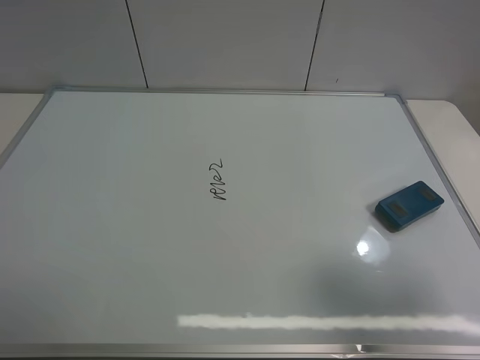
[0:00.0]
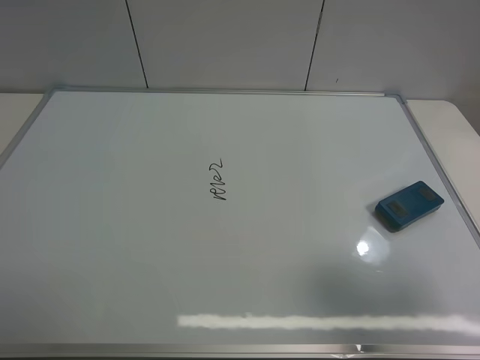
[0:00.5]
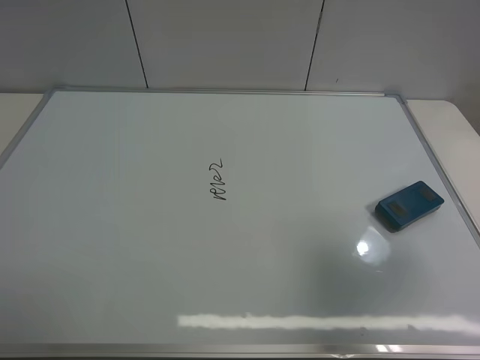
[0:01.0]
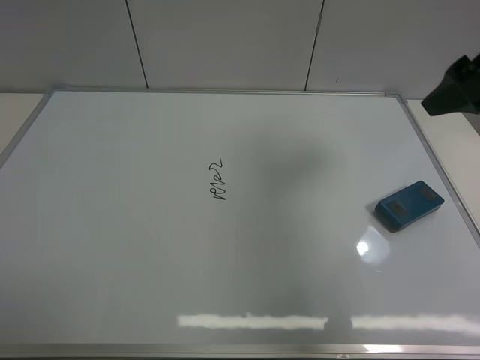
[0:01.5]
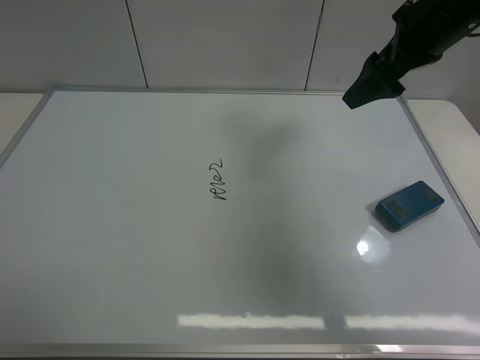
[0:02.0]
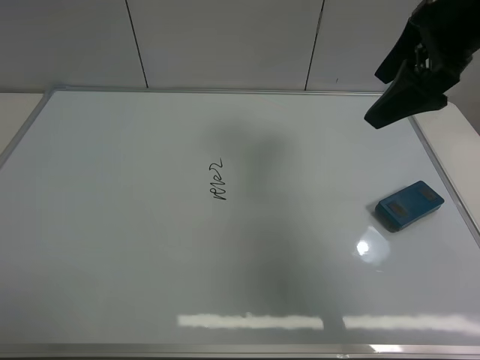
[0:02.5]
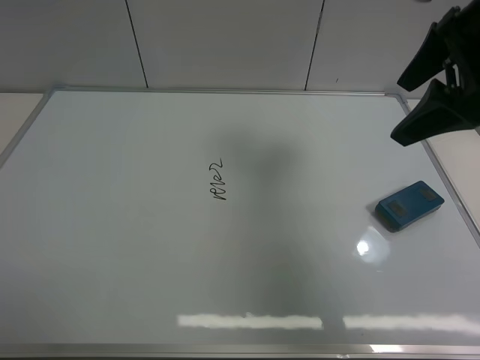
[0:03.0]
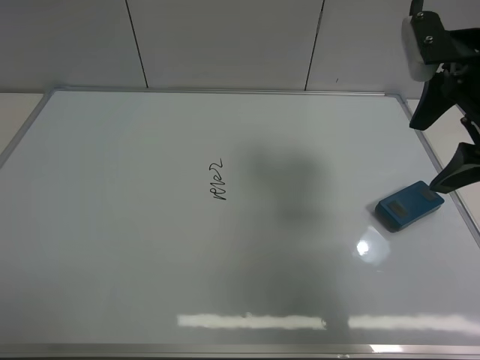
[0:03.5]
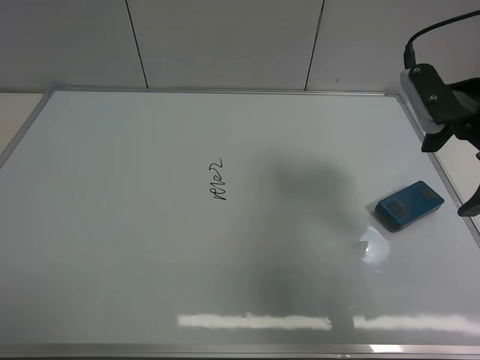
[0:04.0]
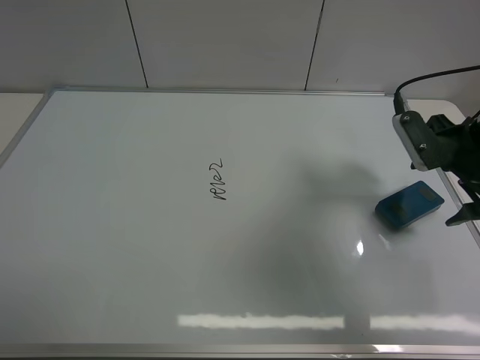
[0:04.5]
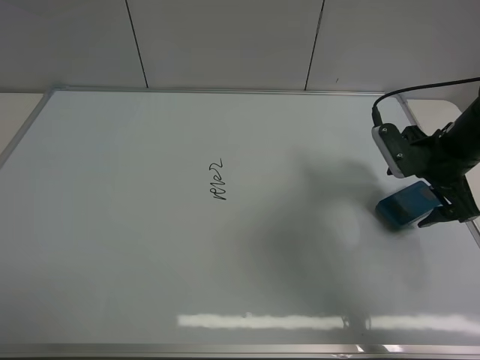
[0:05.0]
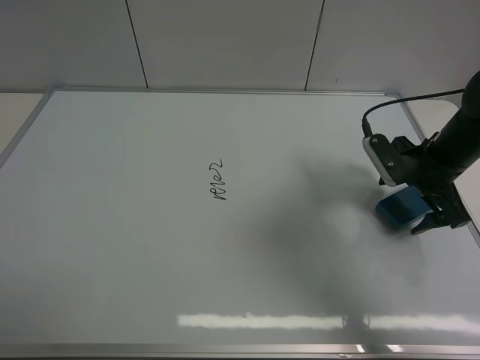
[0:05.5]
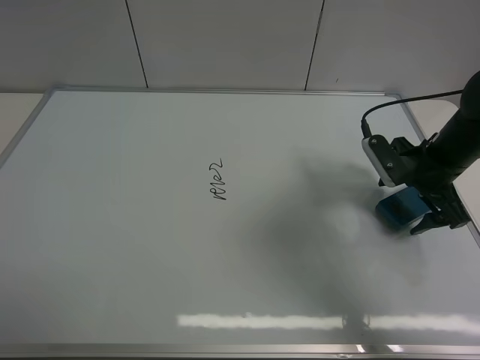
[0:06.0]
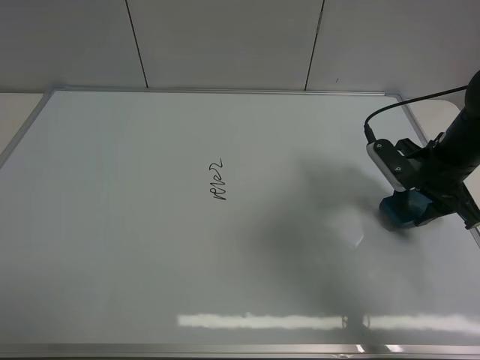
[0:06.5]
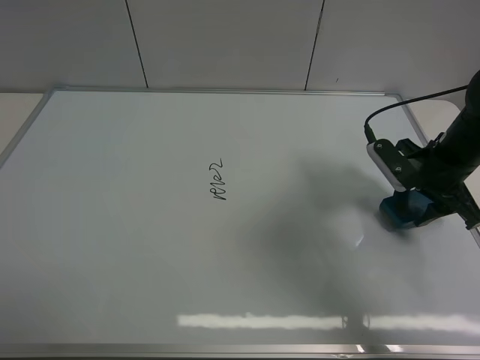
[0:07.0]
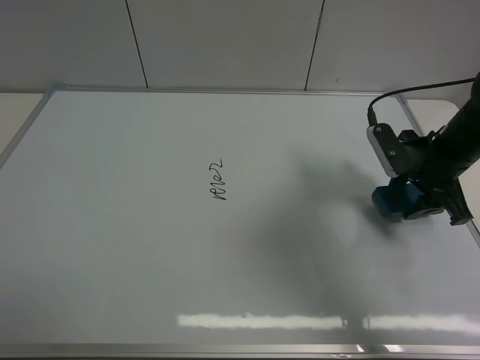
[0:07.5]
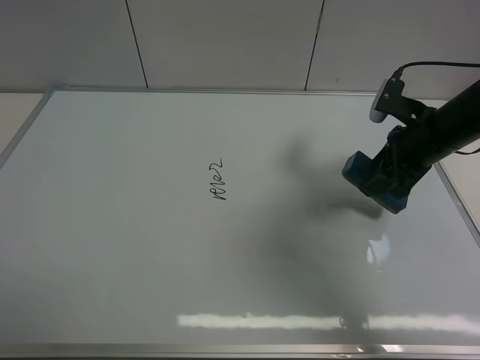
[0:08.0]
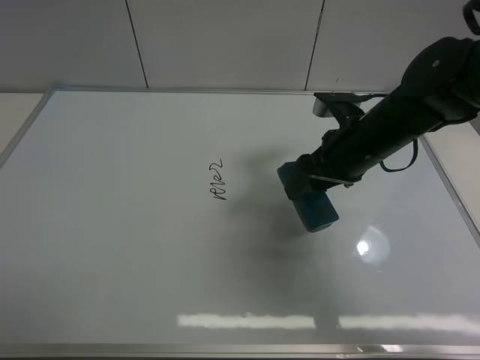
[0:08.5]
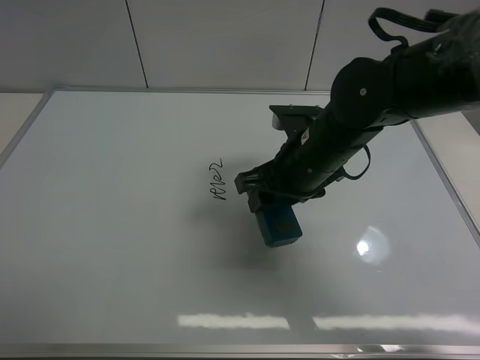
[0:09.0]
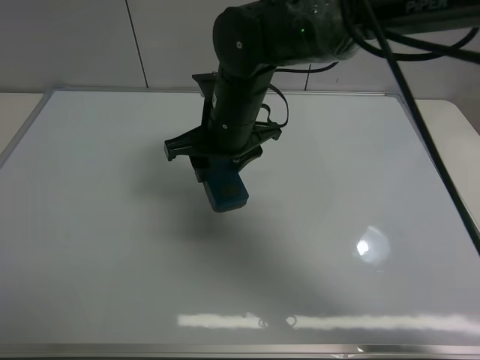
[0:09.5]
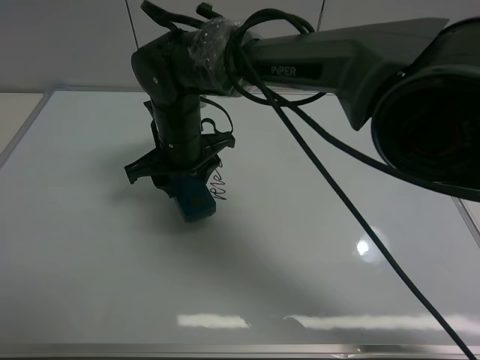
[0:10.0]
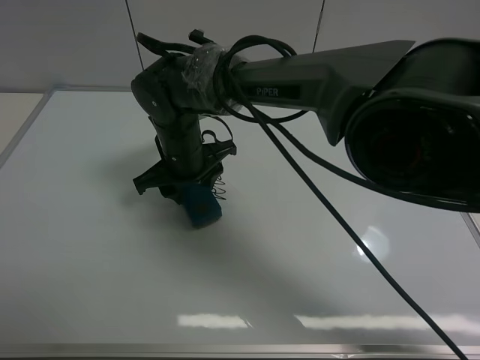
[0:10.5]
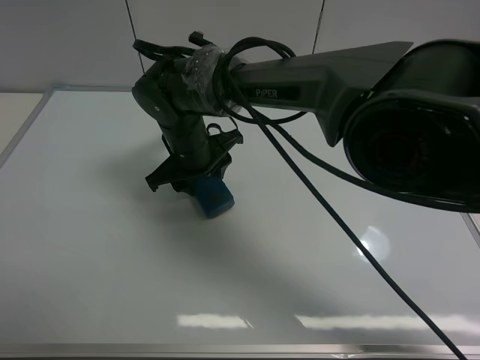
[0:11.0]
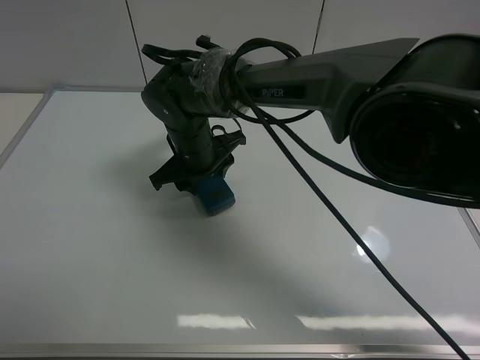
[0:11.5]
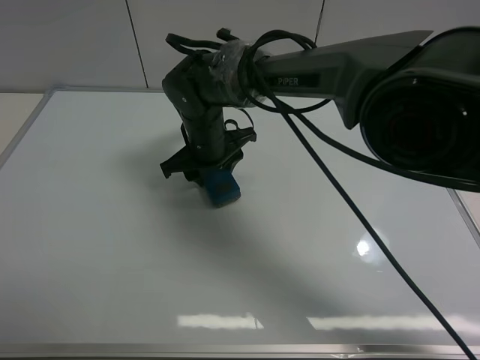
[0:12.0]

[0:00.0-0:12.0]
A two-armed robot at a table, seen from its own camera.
Task of the whole recording: use the right gripper to pick up the board eraser, wipe the notes on the whiteboard clean, and then put them back in place.
Step, 0:00.0 to 0:07.5: Pick up the board eraser with right gripper.
0:00.0 to 0:02.0: The right gripper moves forward, about 35 cm.
0:02.0 to 0:04.0: The right gripper goes approximately 10 cm backward and downward.
0:04.0 to 0:06.0: The right gripper moves downward, about 10 cm.
0:06.0 to 0:08.0: The right gripper closes up.
0:08.0 to 0:10.0: The right gripper goes approximately 35 cm to the left.
0:10.0 to 0:12.0: The right gripper ends up approximately 5 cm from where it was.

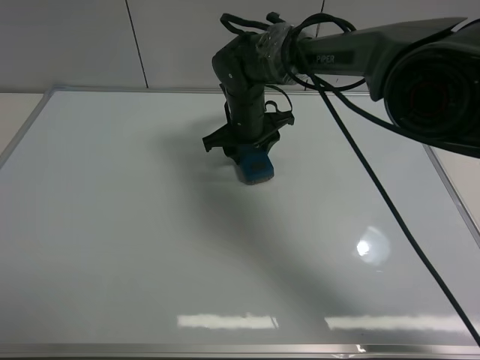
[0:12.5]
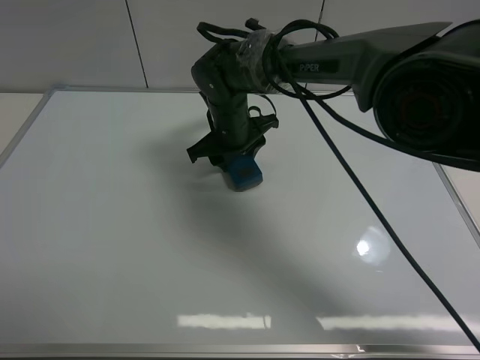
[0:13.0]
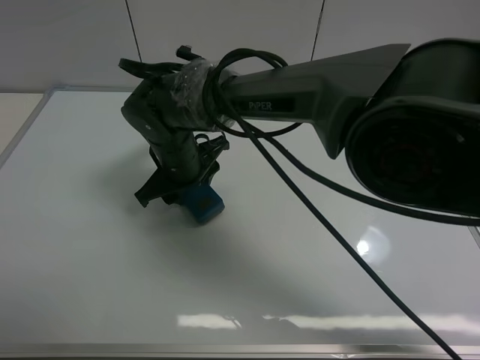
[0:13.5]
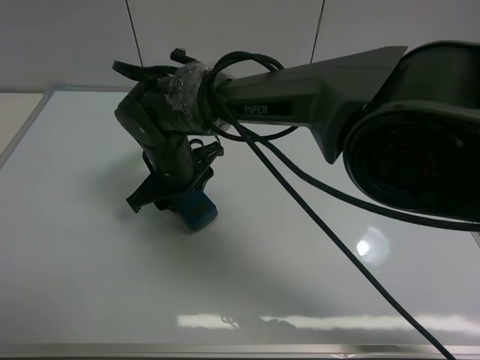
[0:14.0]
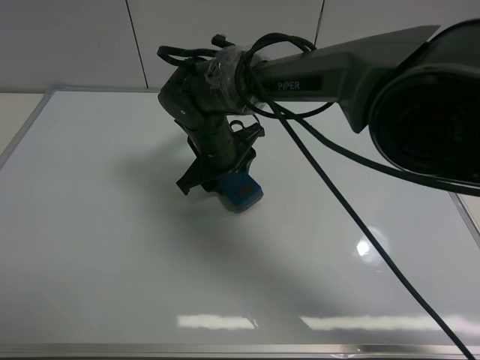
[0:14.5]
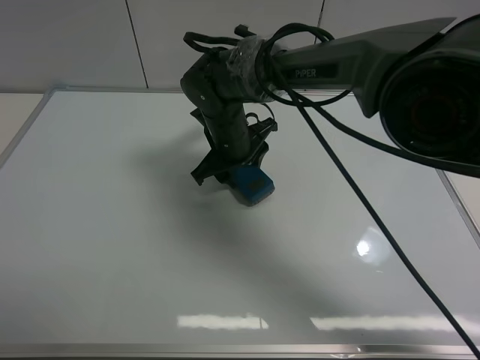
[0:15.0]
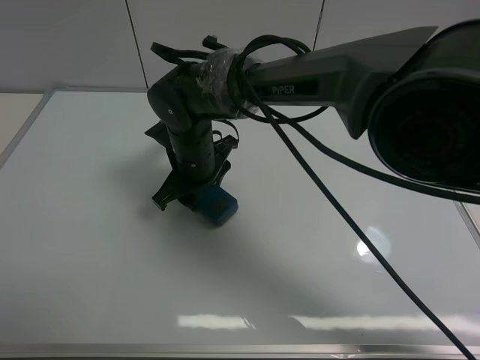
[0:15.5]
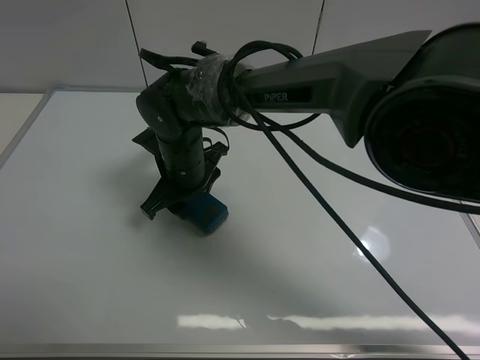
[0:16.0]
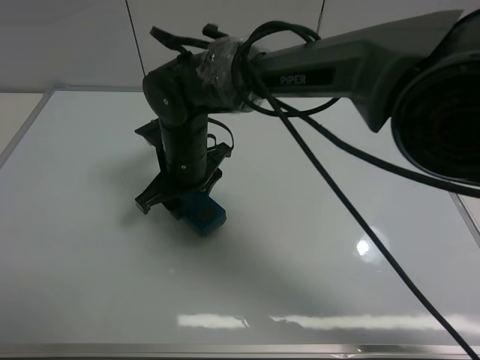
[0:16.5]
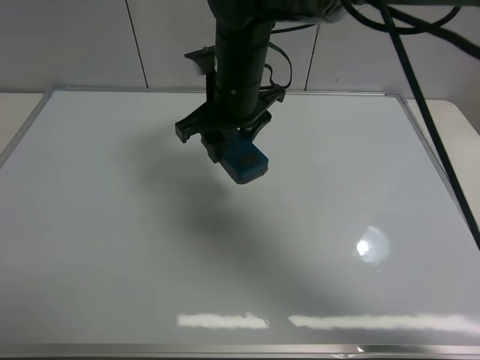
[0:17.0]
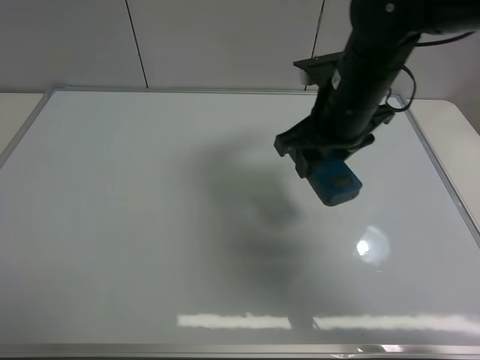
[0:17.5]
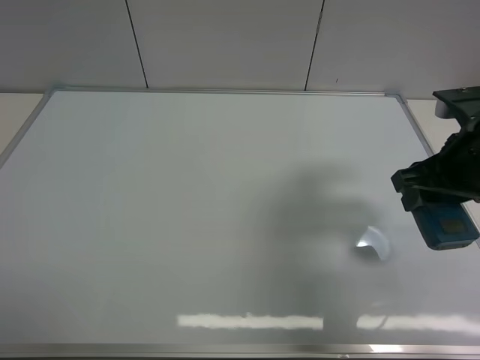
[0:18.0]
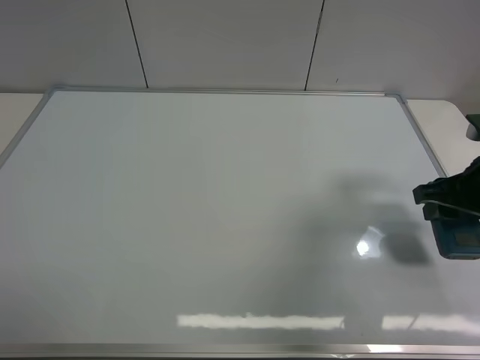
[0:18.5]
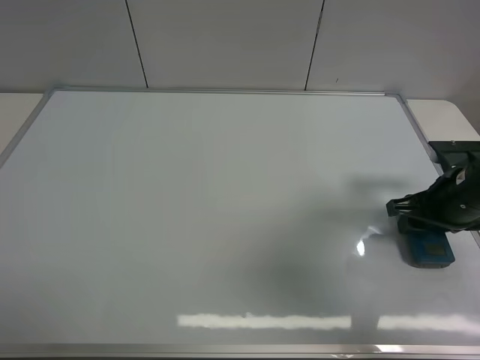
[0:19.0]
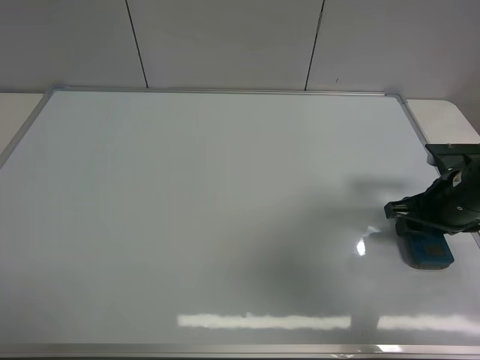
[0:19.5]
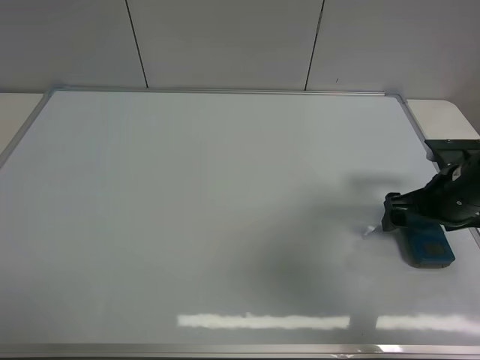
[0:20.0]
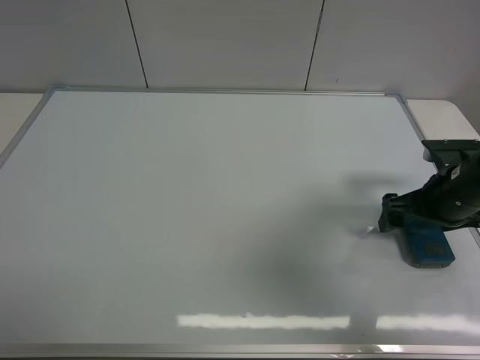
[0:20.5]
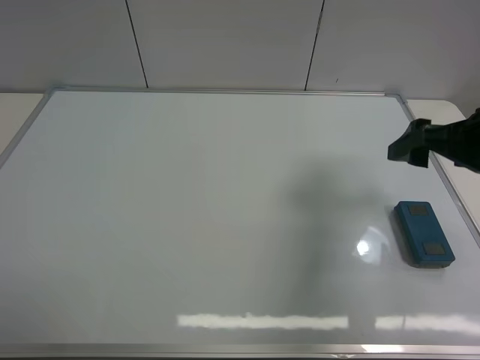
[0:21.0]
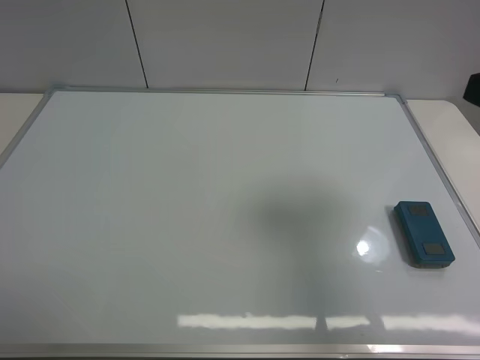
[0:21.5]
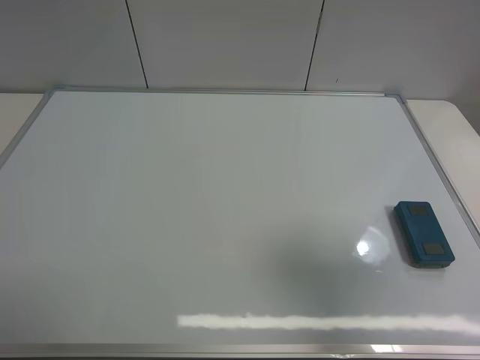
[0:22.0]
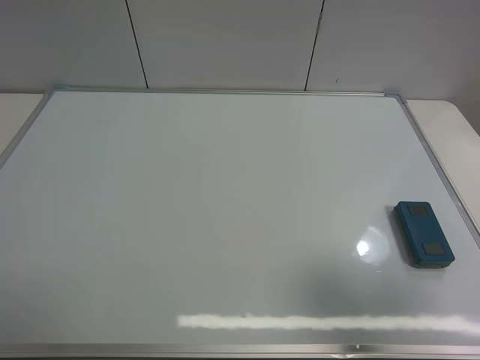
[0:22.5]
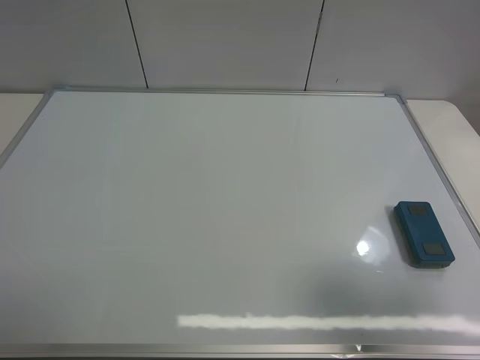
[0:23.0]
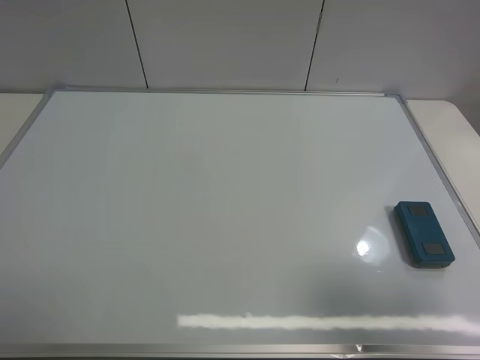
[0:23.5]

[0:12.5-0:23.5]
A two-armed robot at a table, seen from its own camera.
Task of the whole recording: use the right gripper to pick up the board eraser, wipe the notes on the whiteboard clean, and then put them back in place.
Step, 0:12.5 to 0:16.0: Wipe off the writing on the board with right gripper.
Step, 0:16.5 to 0:20.0: Move the board eraser to the right of the whiteboard with right gripper.
0:12.5 to 0:14.5: The right gripper shifts about 5 cm backward.
0:14.5 to 0:16.0: The right gripper ends up approximately 5 cm from where it was.
0:16.0 to 0:18.0: The right gripper travels to the right by roughly 35 cm.
0:18.0 to 0:20.0: The right gripper heads downward, covering some 10 cm, and opens its fingers.
0:20.0 to 0:21.5: The right gripper moves upward and backward, some 25 cm.
0:21.5 to 0:23.5: The right gripper travels backward by some 10 cm.
